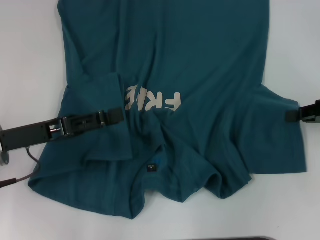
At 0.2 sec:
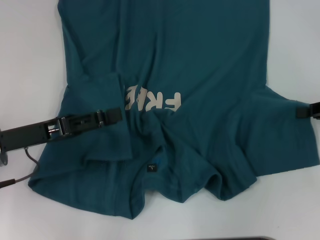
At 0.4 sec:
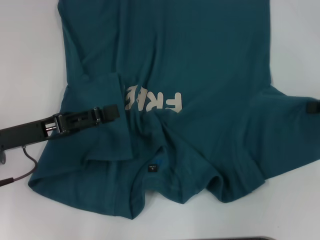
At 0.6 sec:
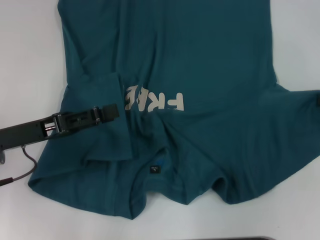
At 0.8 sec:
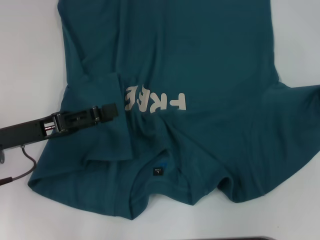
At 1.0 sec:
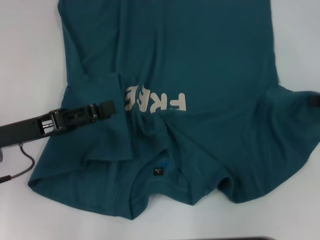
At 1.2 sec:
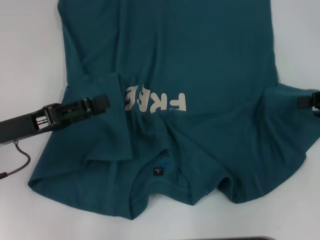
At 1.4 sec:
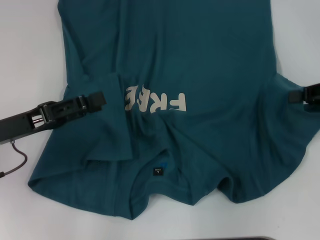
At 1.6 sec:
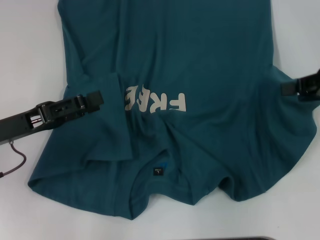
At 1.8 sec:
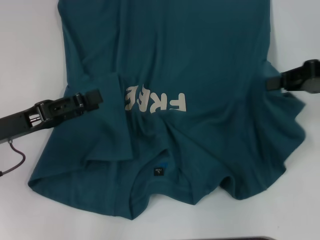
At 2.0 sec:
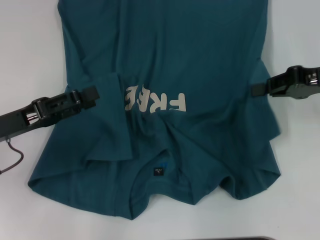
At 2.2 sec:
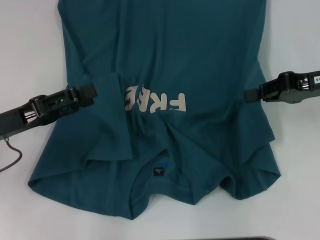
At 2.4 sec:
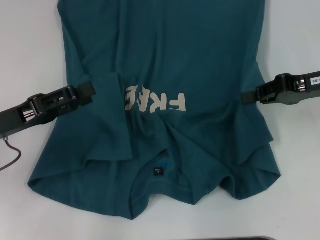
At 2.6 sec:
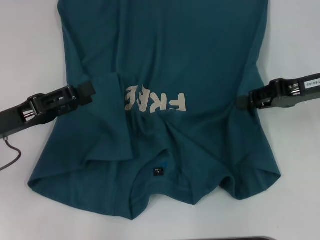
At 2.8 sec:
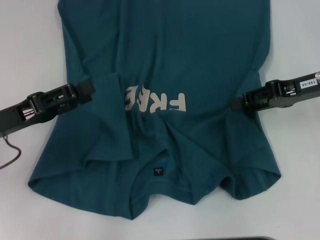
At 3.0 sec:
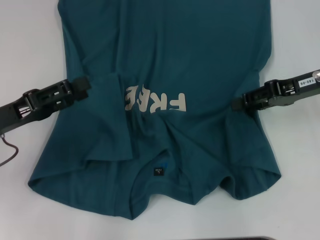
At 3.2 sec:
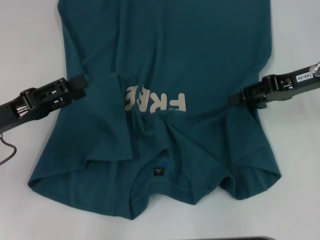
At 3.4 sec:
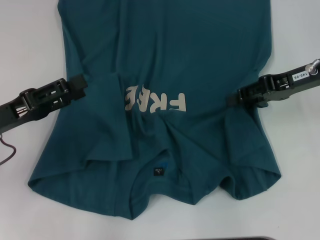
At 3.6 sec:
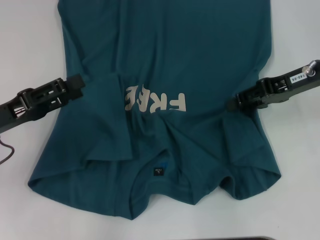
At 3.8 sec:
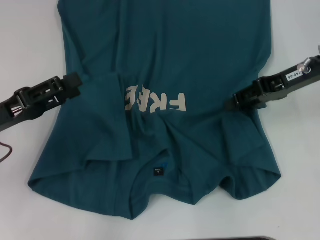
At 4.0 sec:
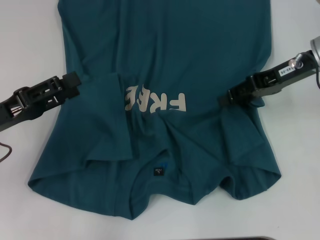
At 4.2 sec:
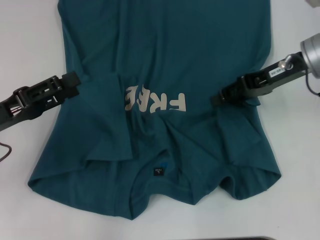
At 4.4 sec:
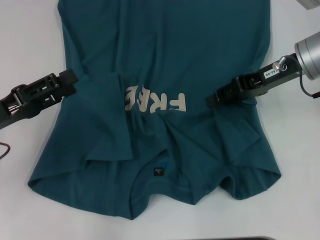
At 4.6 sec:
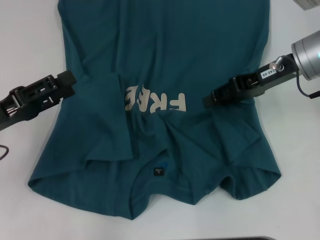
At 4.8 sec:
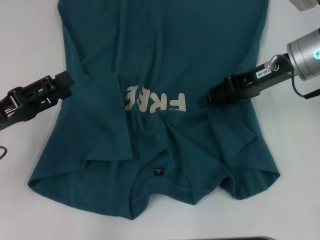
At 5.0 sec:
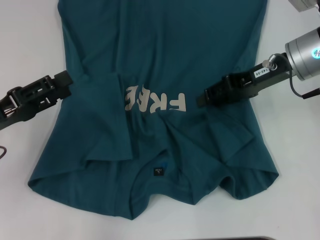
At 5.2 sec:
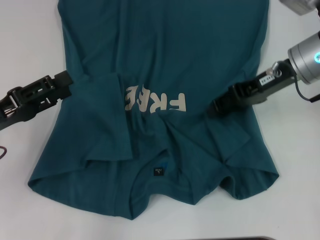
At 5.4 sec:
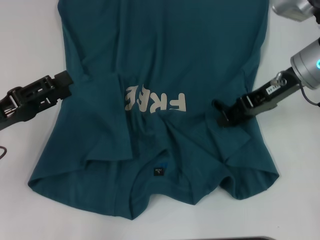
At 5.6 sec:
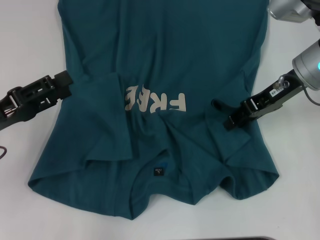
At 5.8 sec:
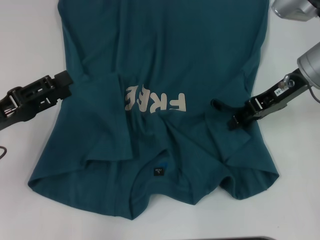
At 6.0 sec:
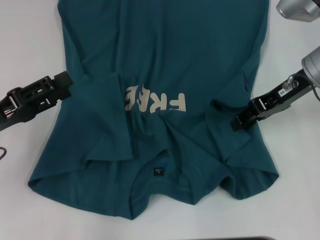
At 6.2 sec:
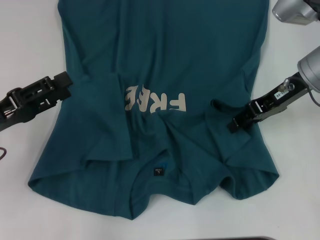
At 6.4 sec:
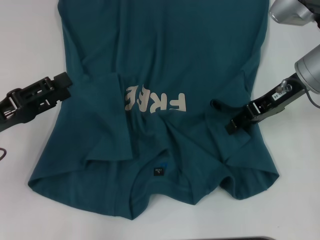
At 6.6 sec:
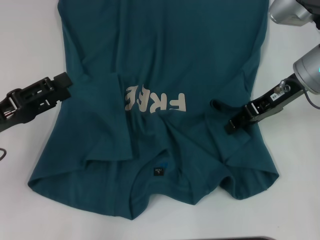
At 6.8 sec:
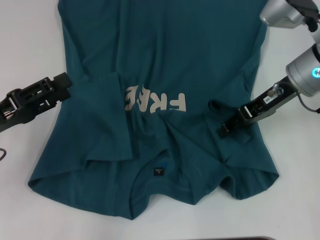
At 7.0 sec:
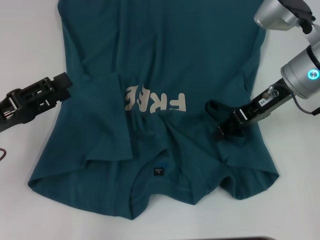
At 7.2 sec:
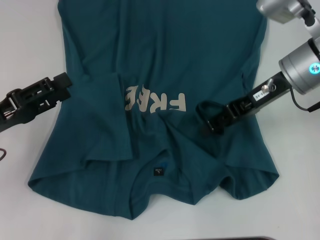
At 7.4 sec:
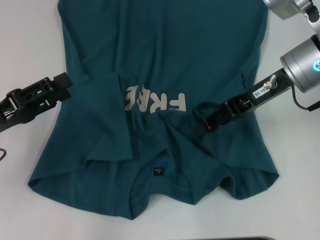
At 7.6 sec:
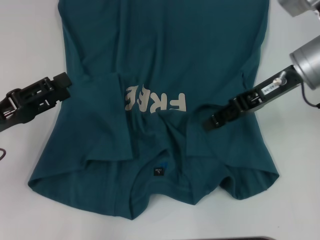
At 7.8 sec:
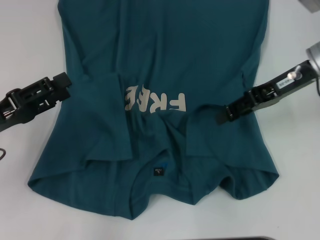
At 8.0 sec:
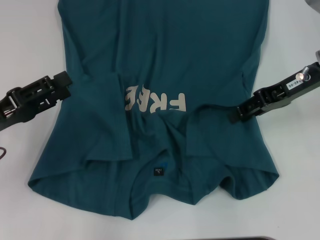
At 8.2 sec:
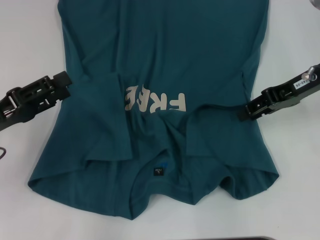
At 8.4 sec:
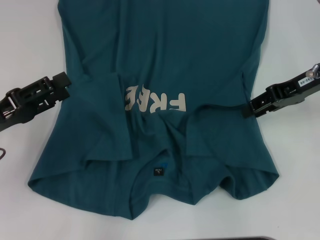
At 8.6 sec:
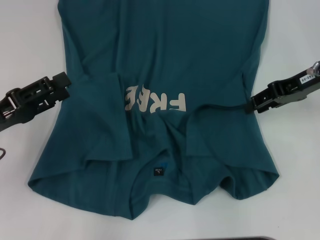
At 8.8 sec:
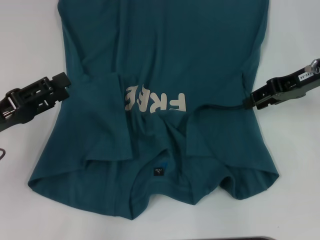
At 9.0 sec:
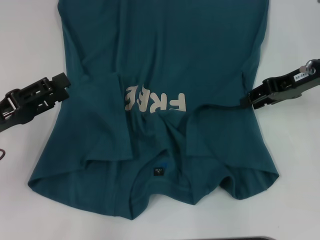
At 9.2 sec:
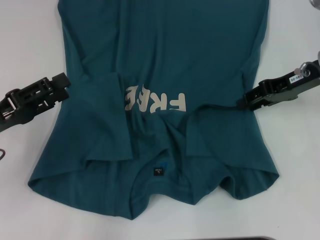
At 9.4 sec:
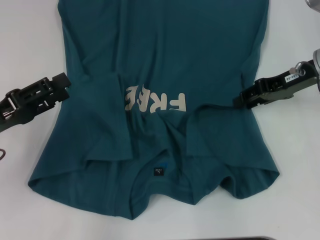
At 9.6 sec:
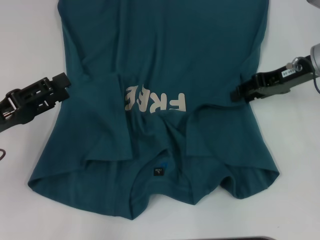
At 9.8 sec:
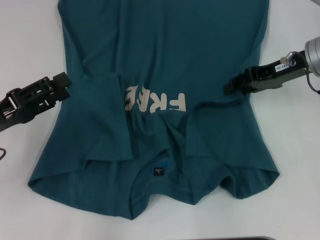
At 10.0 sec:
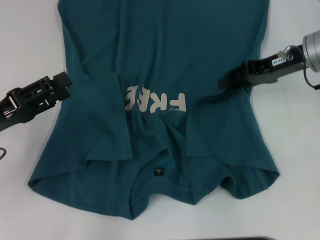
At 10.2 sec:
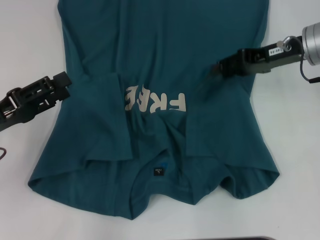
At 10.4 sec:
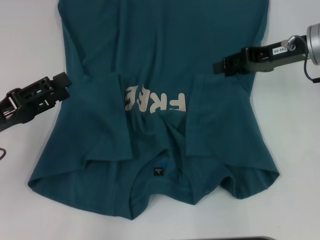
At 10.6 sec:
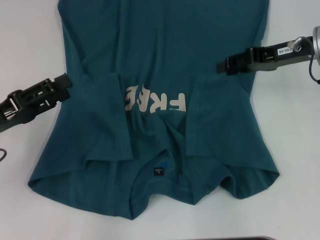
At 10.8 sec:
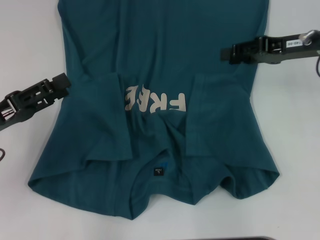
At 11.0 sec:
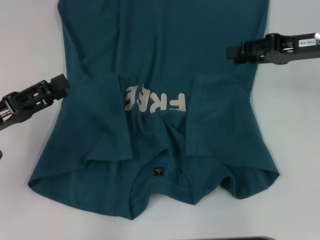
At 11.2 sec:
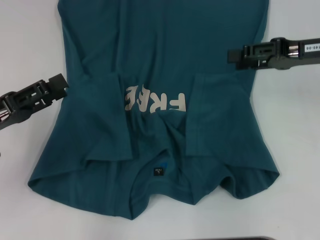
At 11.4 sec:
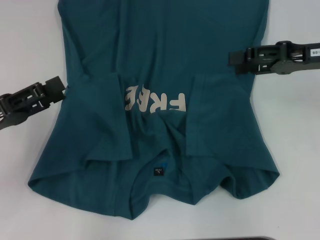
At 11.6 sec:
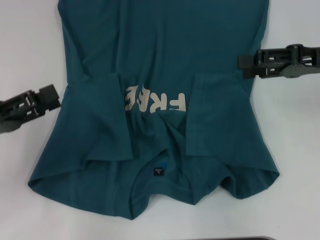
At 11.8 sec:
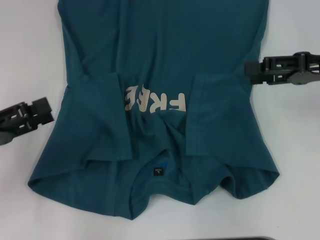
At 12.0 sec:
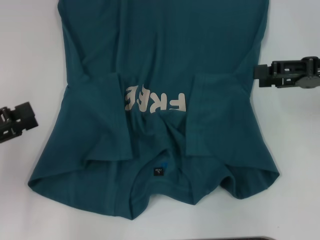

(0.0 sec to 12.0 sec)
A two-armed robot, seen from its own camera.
Step, 0.0 sec - 10.2 sec: Fold the bottom right sleeve to the right.
0.0 sec - 1.6 sec: The right gripper is displaced upward by about 5 cm.
1.6 sec - 3.0 sec: The right gripper travels to the left by approximately 5 cm, and opens up.
3.0 sec - 4.4 sec: The right gripper travels to the left by about 5 cm.
4.4 sec - 7.6 sec: The grippers stay close to where they were, moving slightly.
7.6 sec - 9.0 sec: The right gripper moves to the right, about 5 cm.
9.0 sec - 10.4 sec: The grippers move only a little.
10.4 sec - 12.0 sec: The right gripper moves to the right and backward, roughly 10 cm, and opens its fingers, while the left gripper changes place by about 5 cm.

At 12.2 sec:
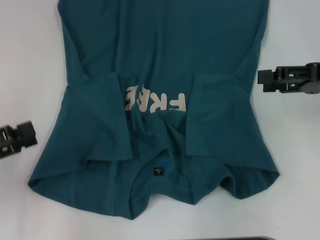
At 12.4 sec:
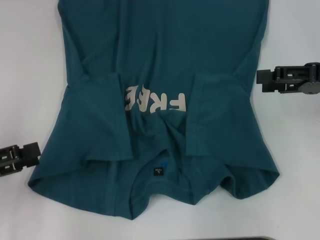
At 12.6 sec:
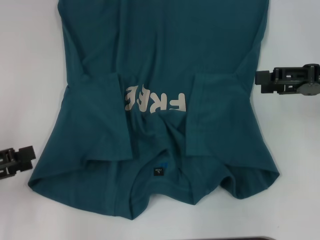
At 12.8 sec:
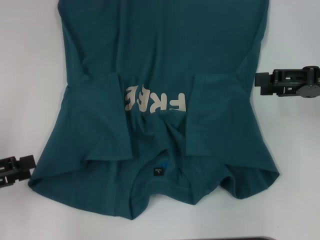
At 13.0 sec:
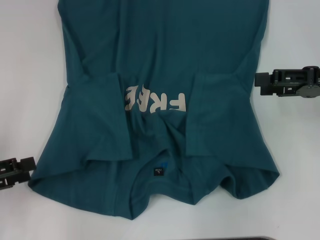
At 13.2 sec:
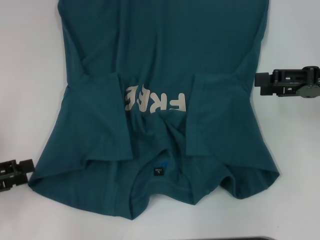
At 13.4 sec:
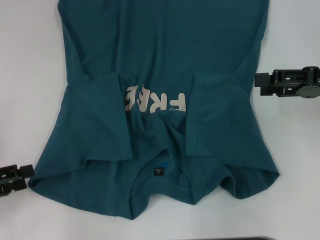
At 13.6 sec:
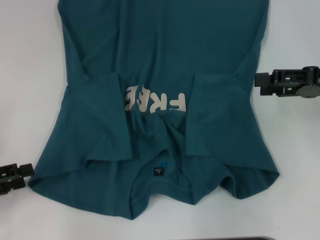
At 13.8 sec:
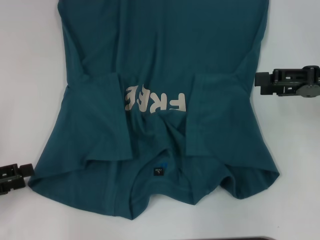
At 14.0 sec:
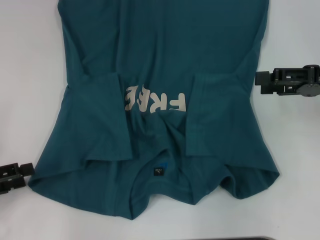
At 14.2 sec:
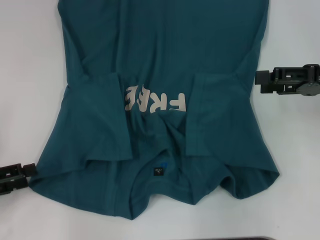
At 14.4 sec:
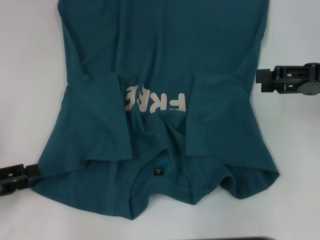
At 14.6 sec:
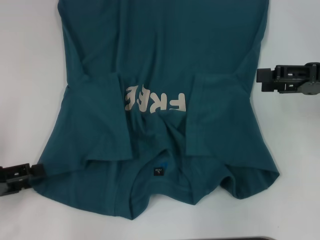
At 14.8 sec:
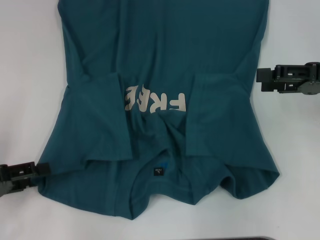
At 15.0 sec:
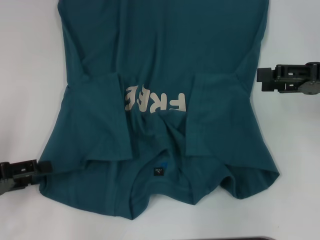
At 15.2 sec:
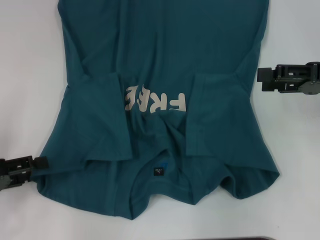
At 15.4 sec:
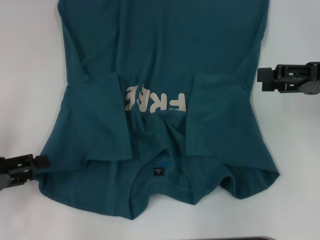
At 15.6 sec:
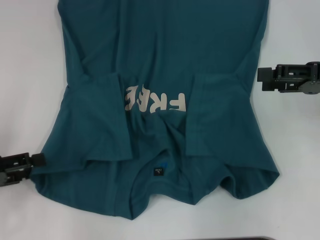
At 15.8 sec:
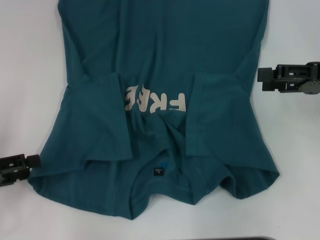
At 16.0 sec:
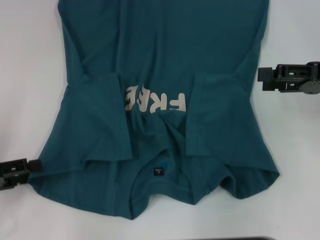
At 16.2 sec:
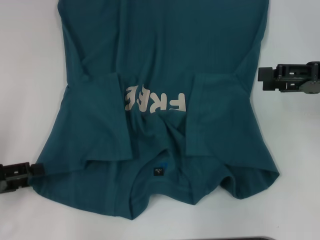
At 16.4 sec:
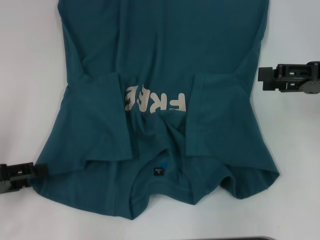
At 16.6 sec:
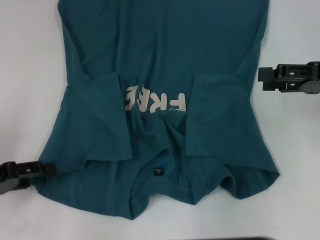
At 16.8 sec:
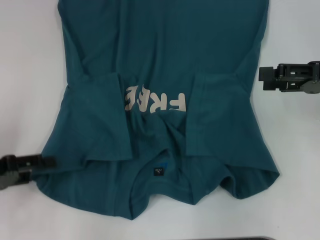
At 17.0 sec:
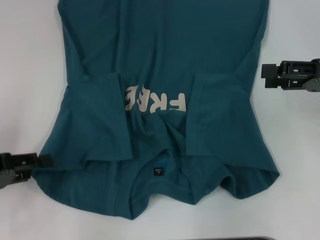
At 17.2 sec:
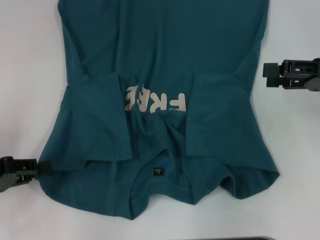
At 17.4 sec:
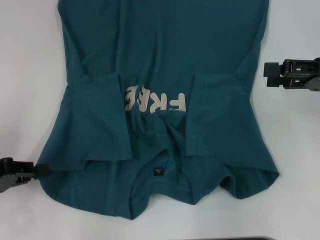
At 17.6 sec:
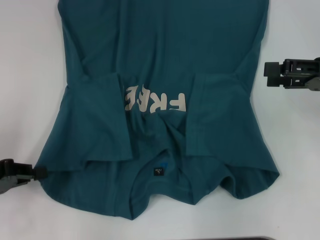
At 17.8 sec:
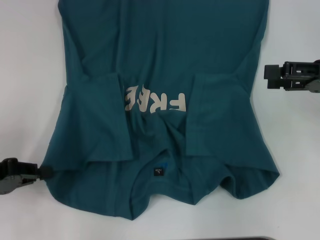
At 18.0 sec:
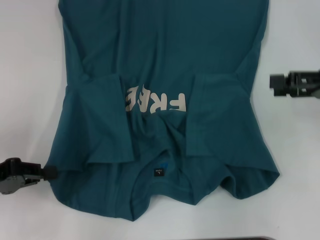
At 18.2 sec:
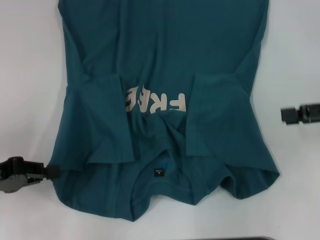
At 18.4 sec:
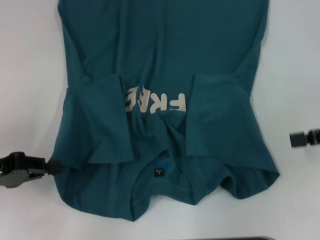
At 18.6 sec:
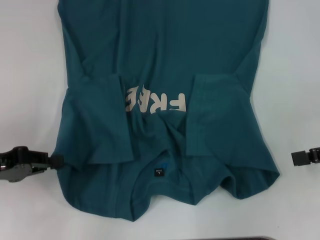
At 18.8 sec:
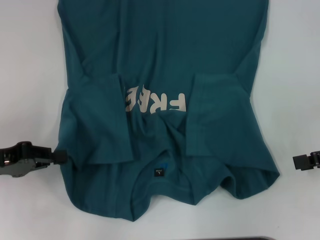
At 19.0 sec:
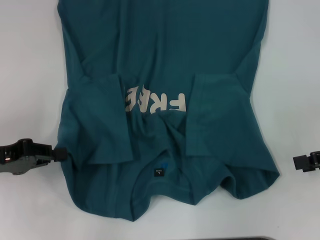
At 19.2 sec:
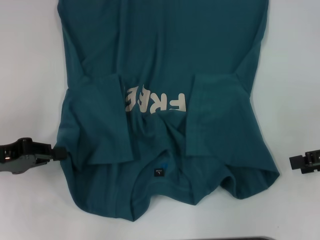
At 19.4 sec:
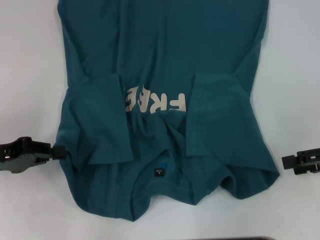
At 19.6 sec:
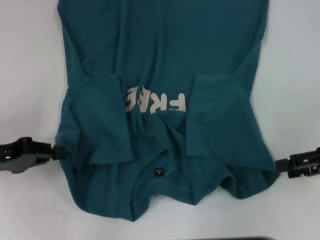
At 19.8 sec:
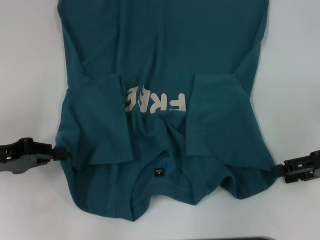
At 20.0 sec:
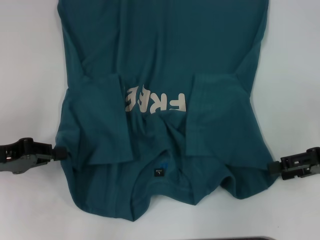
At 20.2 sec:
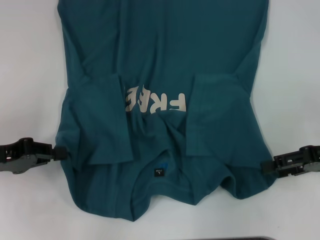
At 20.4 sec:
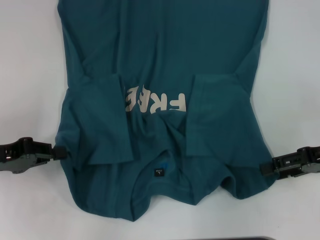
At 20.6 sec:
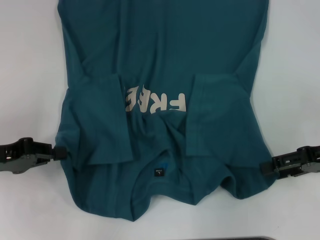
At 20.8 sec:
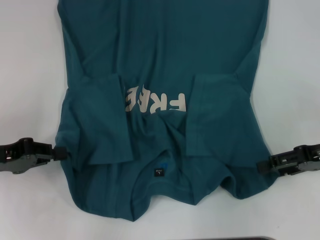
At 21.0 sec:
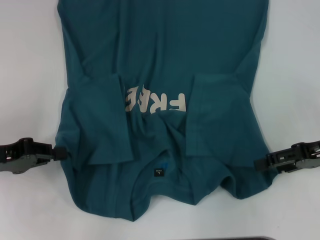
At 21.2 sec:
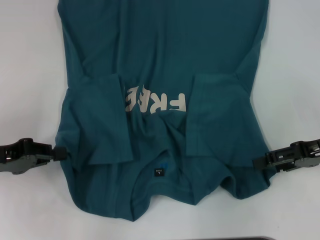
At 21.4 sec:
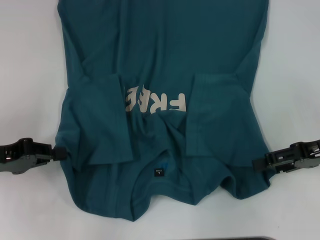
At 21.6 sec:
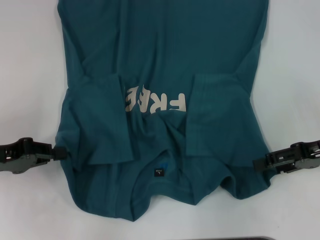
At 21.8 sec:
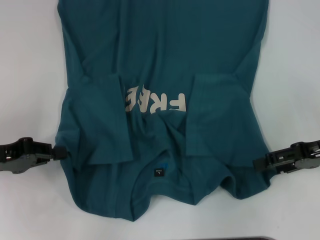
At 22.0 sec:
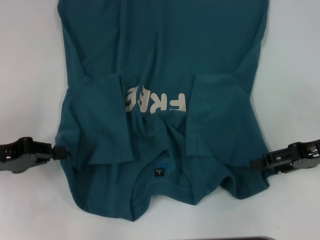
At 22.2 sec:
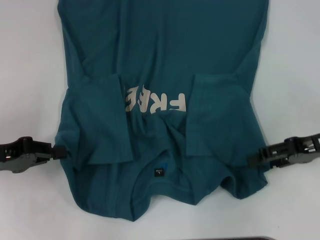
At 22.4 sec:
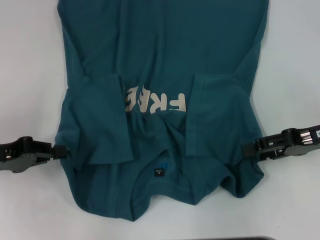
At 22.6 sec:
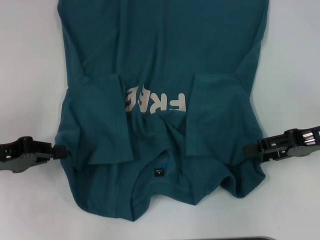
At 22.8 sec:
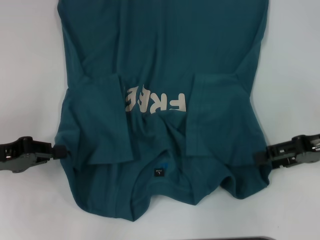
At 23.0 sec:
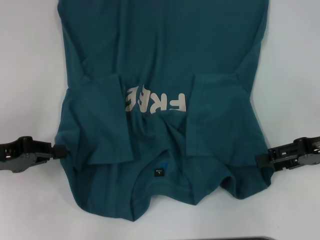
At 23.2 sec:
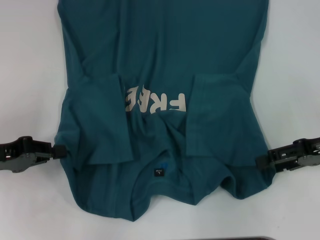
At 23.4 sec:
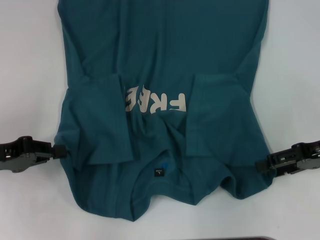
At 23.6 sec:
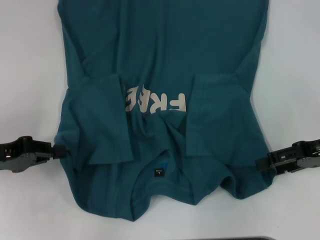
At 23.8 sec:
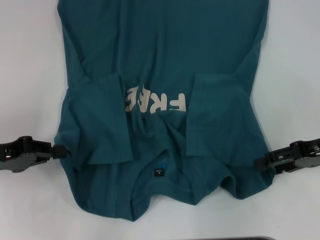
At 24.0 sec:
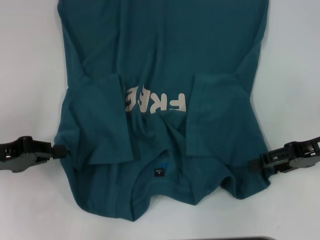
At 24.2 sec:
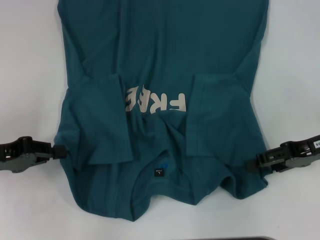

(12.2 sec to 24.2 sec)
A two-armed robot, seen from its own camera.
Step, 12.2 sec - 17.8 sec: Grab the bottom left corner with your left hand.
13.8 sec - 15.2 sec: There are only small adjustments of the grippers.
15.2 sec - 16.6 sec: Both grippers stay put.
16.6 sec - 18.2 sec: The left gripper closes its fingers.
18.2 sec - 19.8 sec: The right gripper changes place by roughly 5 cm.
19.8 sec - 24.2 sec: The grippers move only a little.
